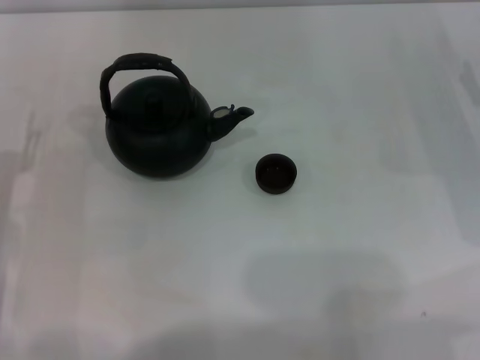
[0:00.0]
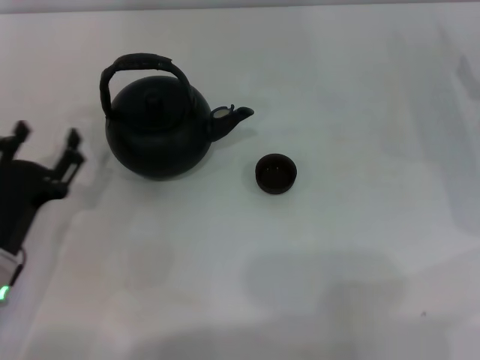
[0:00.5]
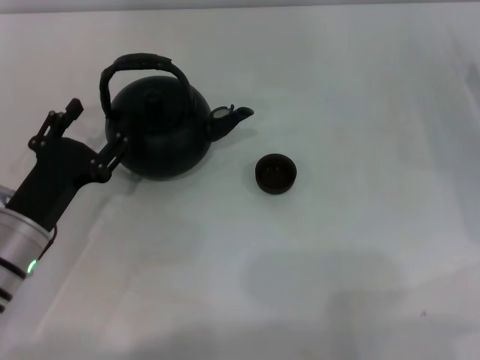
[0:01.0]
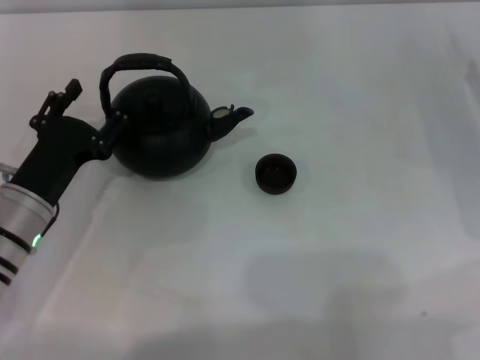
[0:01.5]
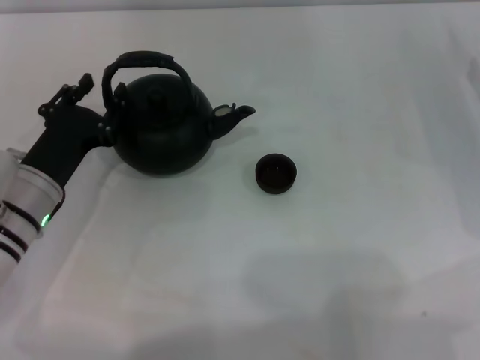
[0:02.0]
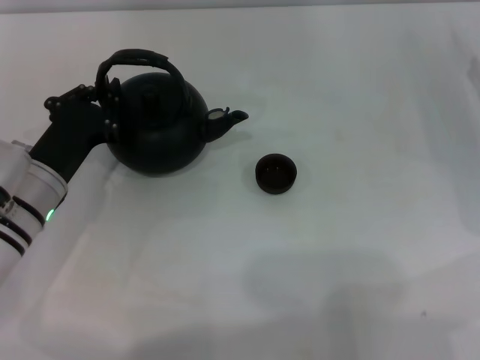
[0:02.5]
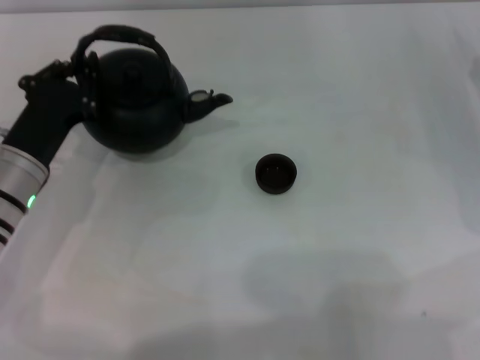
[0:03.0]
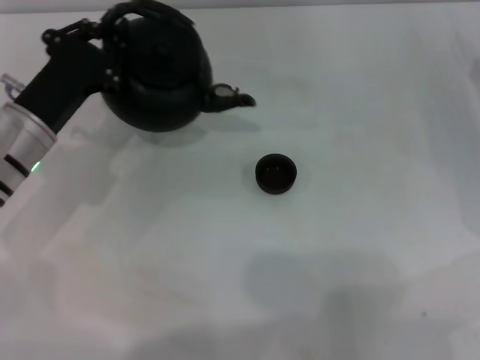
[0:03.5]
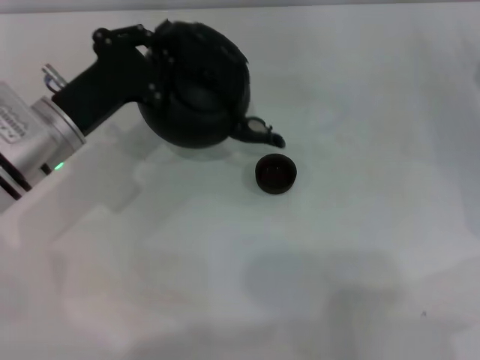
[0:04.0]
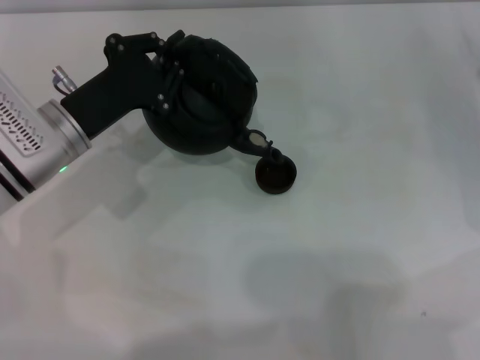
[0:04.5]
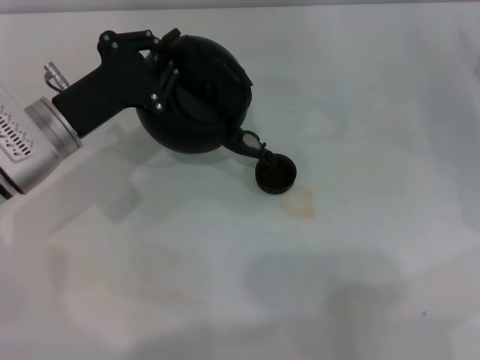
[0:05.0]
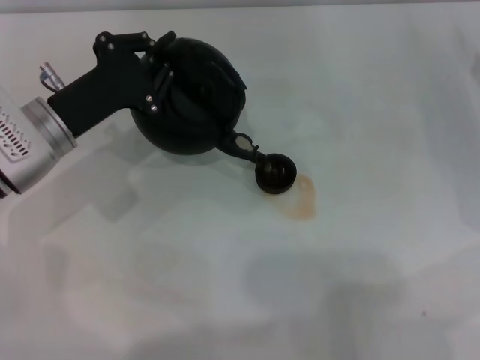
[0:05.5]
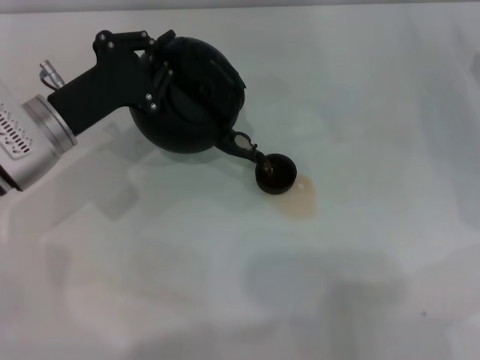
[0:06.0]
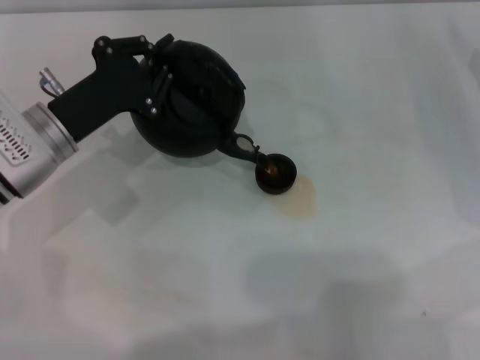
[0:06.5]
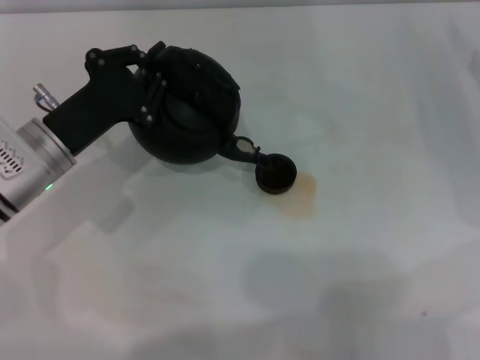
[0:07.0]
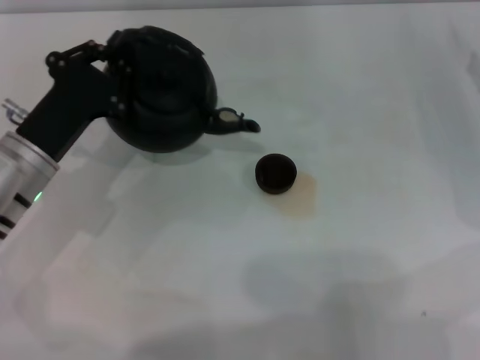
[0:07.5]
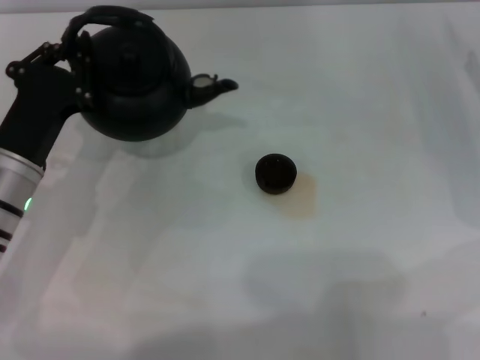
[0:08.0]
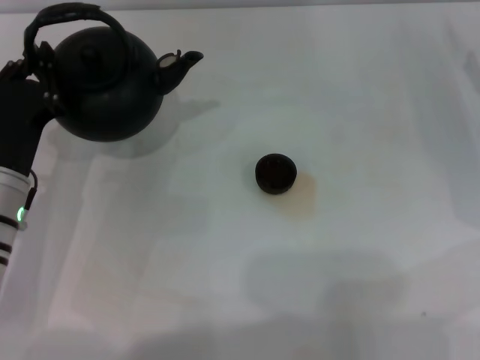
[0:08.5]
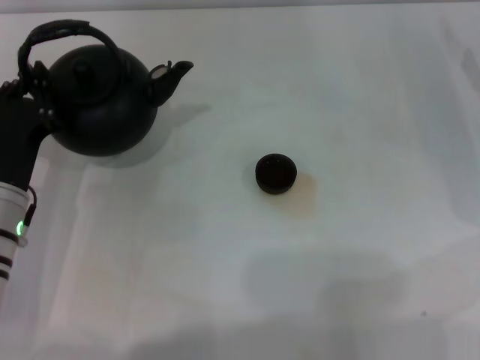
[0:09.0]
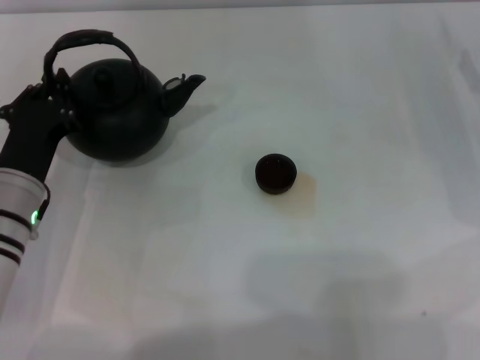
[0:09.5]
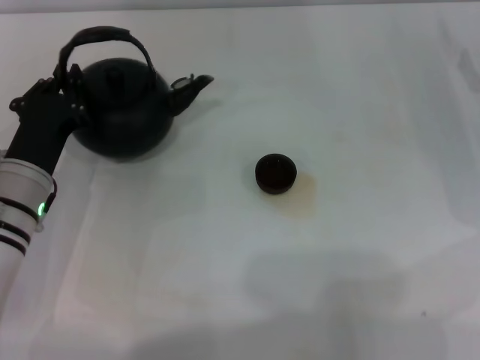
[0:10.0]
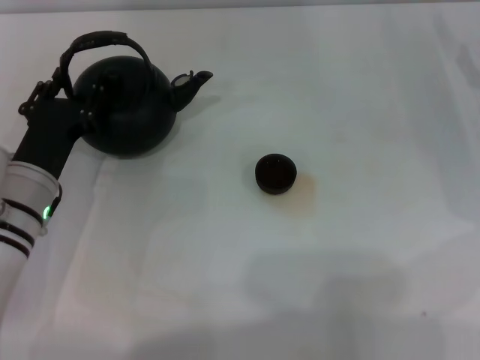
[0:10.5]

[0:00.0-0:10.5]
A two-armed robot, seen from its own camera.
Task of the whole recording: Grasp the handle of the teapot with one hand and pour tea into the teacup.
Step, 0:00.0 to 0:03.0: Pick up the teapot with the left gripper.
Step, 0:03.5 to 0:07.5: Pour tea into the teacup with the left gripper.
0:00.0 to 0:02.0: The left gripper travels to the right by some 5 cm.
0:02.0 to 0:04.0: The left gripper shifts about 5 cm upward, and closes up.
0:04.0 to 0:06.5: The grippers make only small movements.
0:06.5 to 0:08.5: The left gripper moves backward, about 5 cm.
0:08.5 to 0:10.5: The left gripper opens.

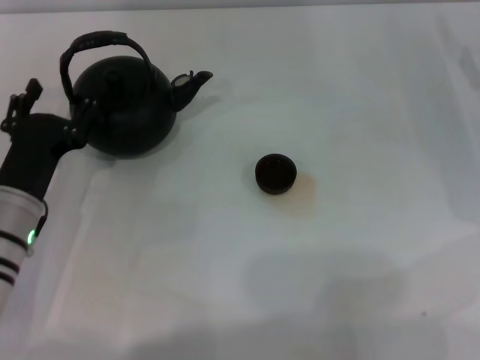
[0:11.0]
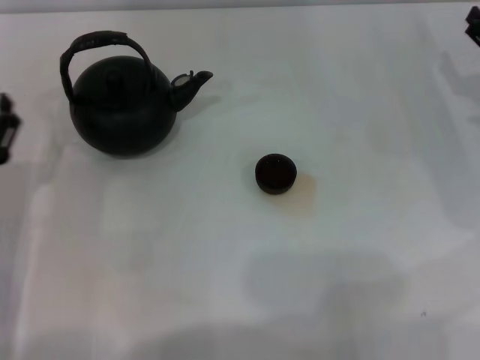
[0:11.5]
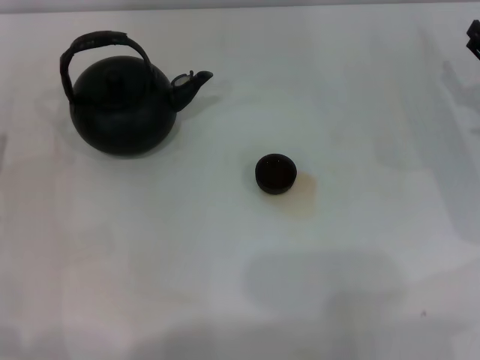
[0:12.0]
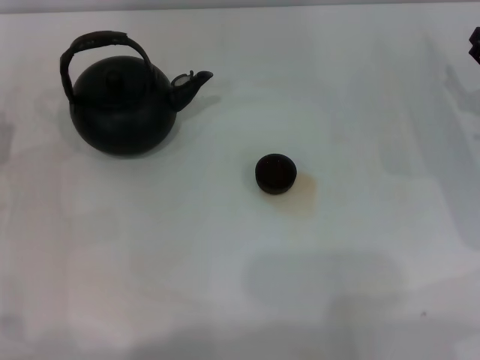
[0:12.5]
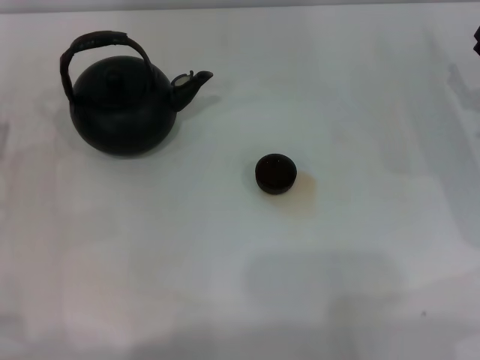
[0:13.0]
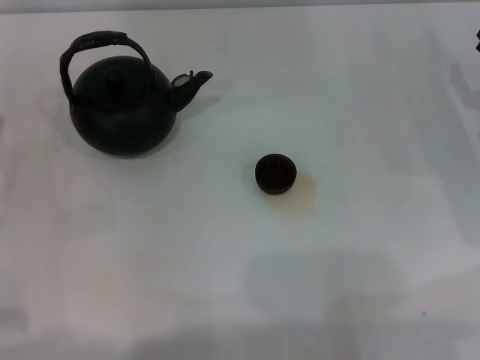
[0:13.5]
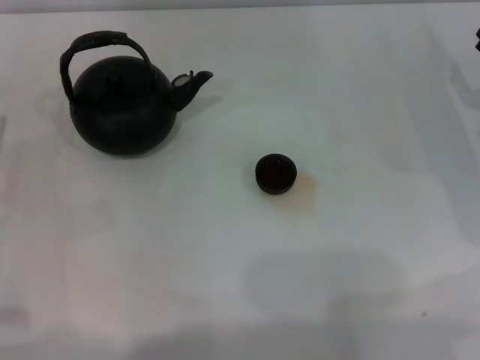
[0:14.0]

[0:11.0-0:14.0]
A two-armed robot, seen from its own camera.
Task of the whole recording: Grasp the handle of the teapot with one hand and pour tea into the teacup.
0:11.0 to 0:12.5: The left gripper heads to the left, covering roughly 10 cm.
